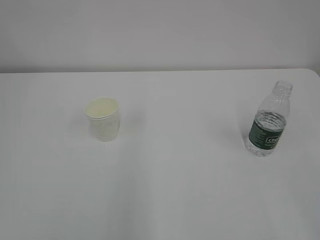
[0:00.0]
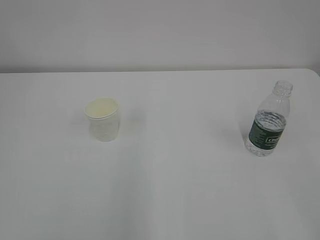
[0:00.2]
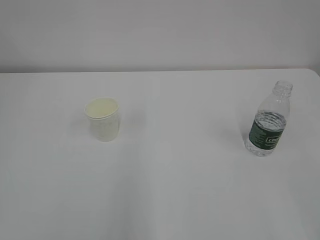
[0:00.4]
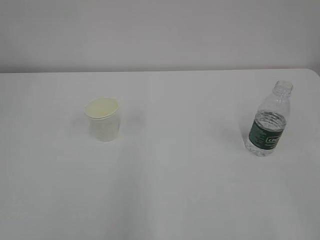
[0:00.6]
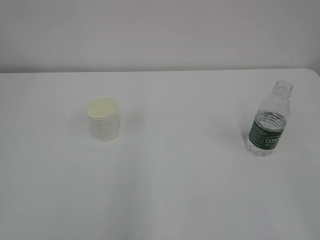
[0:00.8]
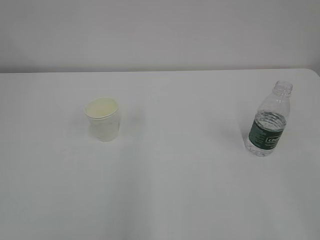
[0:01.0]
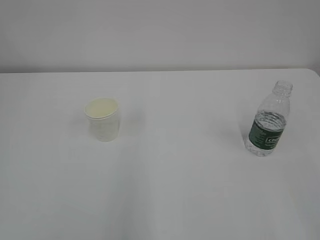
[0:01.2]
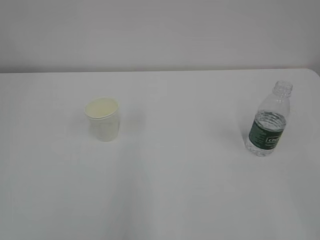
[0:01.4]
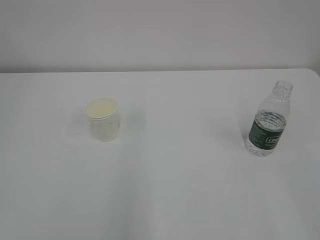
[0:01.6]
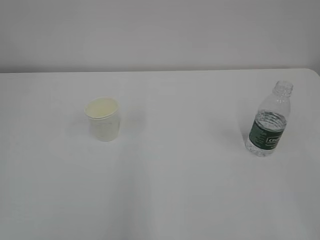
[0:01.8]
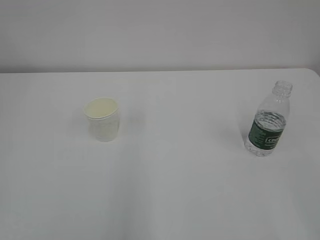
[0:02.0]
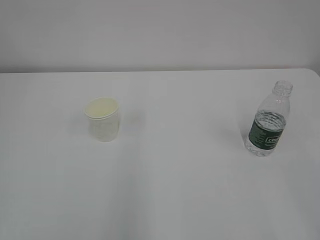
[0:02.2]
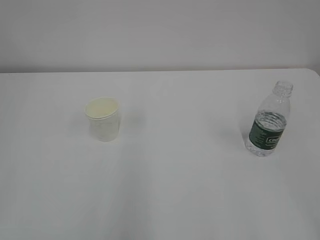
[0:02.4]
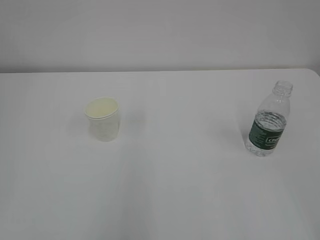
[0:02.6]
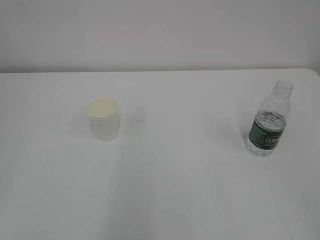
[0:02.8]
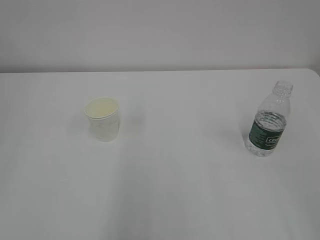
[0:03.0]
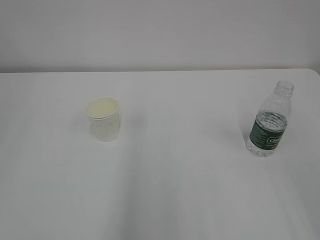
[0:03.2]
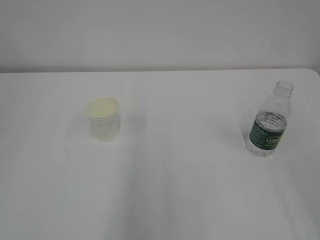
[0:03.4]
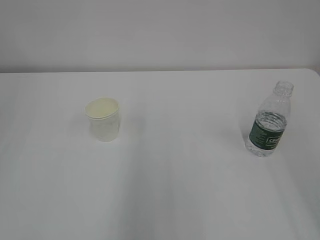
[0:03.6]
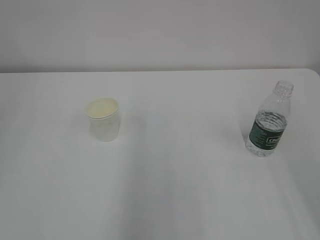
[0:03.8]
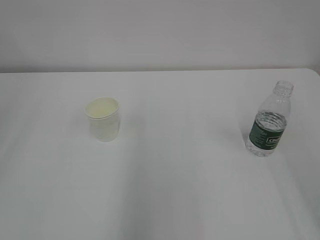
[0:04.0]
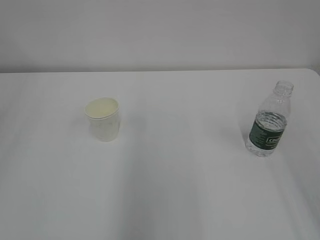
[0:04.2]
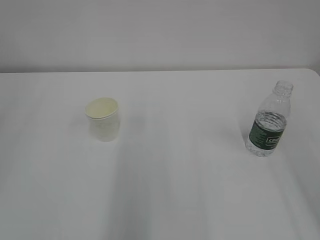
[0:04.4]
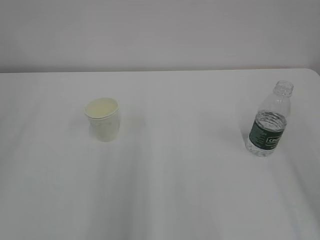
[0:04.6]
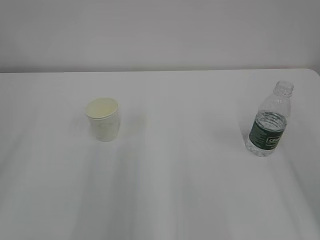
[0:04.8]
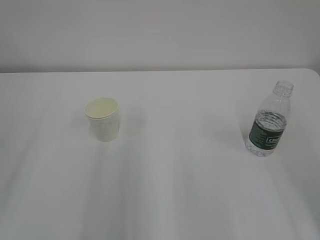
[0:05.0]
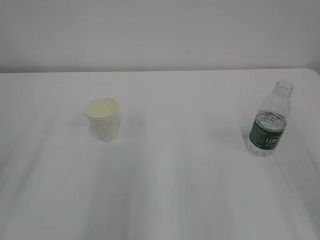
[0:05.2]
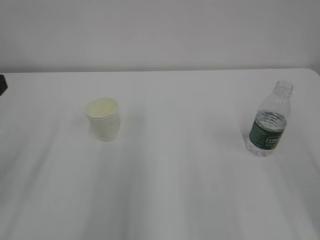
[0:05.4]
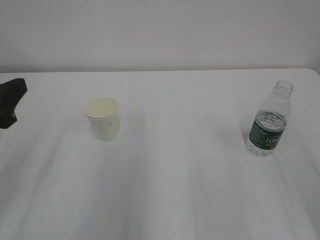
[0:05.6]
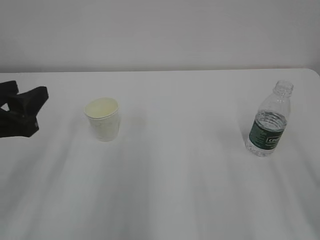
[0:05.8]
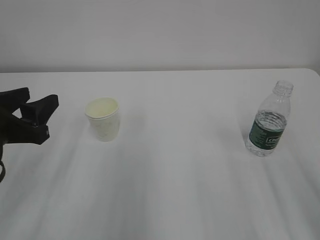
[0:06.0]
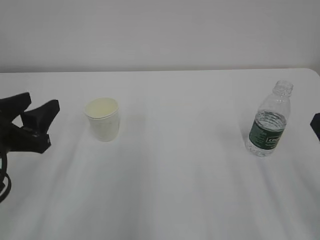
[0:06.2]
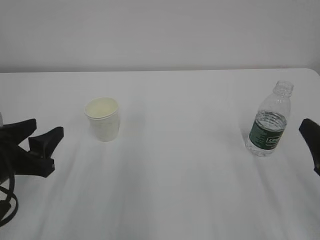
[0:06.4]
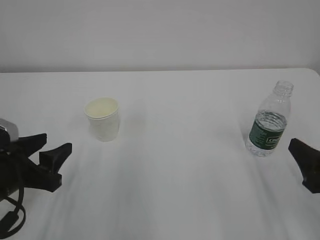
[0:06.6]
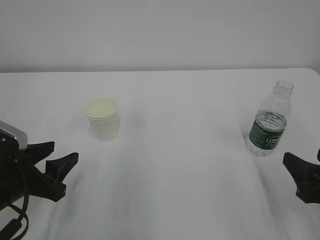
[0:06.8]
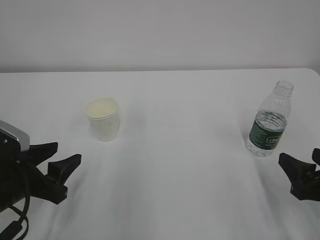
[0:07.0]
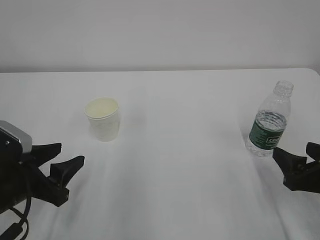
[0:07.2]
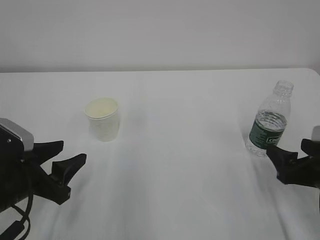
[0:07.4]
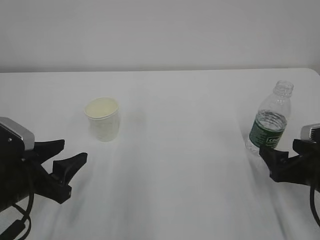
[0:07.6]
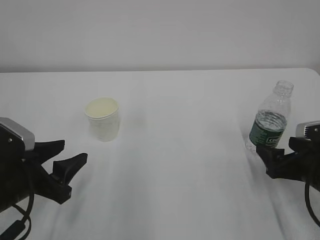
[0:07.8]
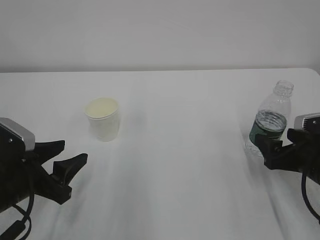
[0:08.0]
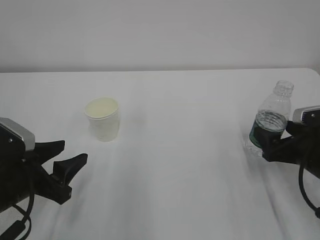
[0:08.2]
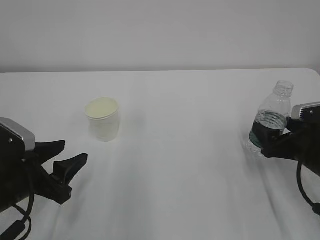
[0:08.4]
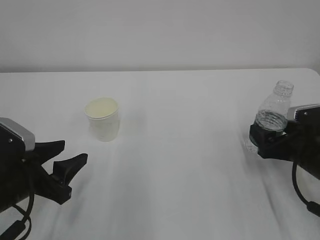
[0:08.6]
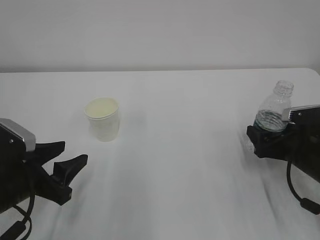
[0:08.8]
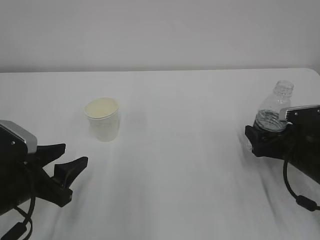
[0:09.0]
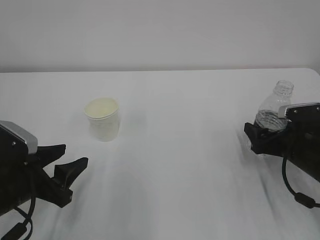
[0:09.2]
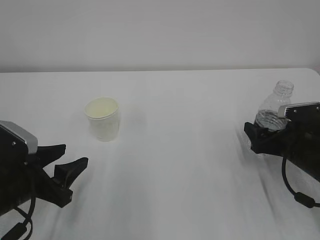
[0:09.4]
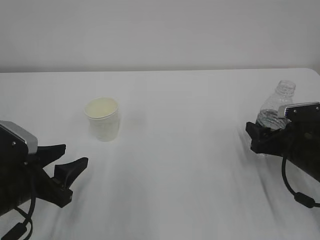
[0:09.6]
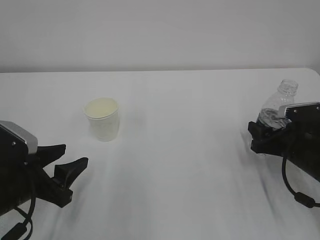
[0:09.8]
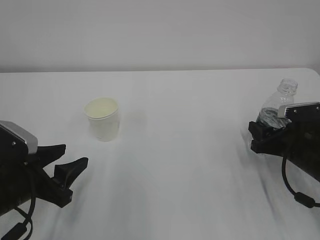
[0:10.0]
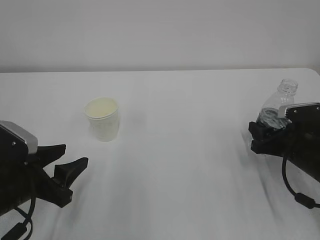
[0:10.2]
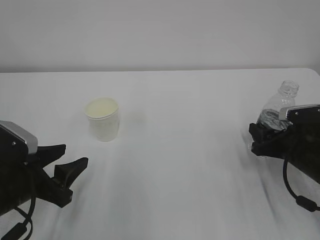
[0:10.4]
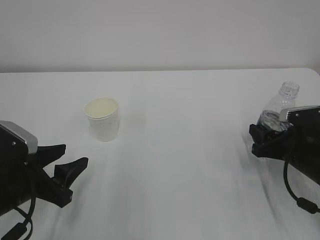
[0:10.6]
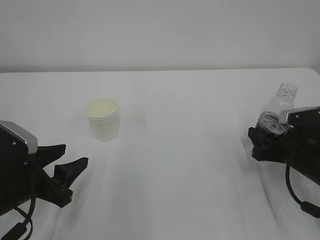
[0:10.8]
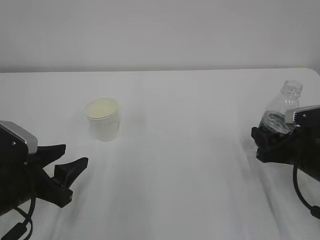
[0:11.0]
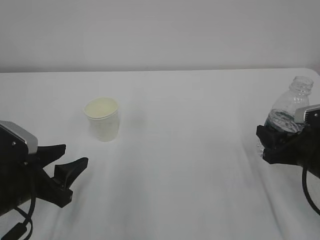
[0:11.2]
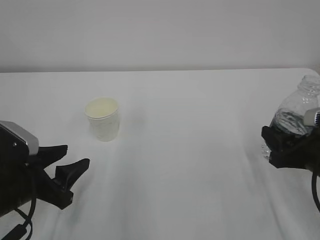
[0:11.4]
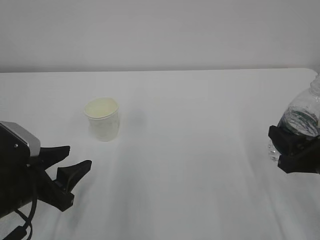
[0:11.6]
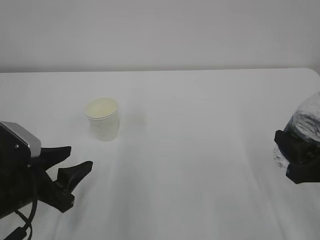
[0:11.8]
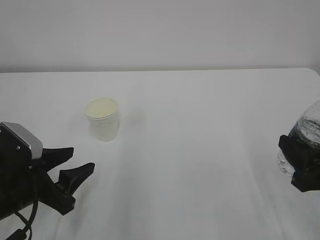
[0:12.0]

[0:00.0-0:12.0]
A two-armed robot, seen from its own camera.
0:04.4 to 0:06.0: The left gripper heads downward, to the right and forward, covering approximately 20 cm.
0:06.0 to 0:07.6: The right gripper moves downward and forward, roughly 15 cm, while the left gripper travels downward by some 10 cm.
0:07.6 to 0:09.0: The right gripper goes roughly 5 cm forward.
0:10.4 to 0:12.0: The right gripper is displaced backward and upward by roughly 15 cm.

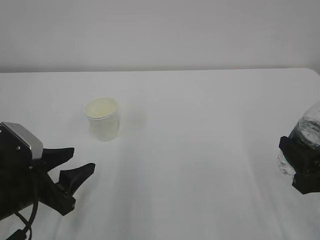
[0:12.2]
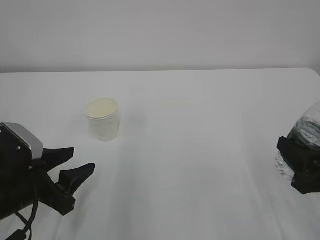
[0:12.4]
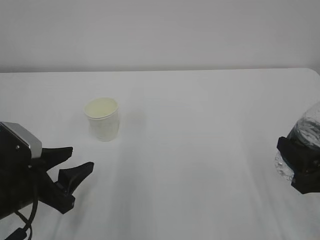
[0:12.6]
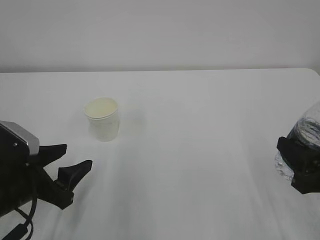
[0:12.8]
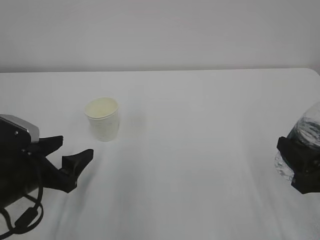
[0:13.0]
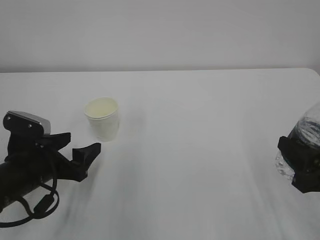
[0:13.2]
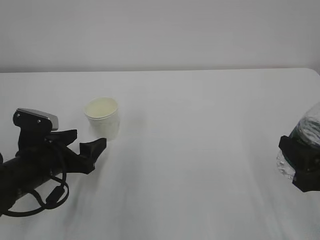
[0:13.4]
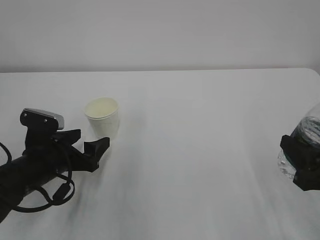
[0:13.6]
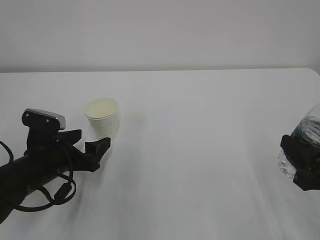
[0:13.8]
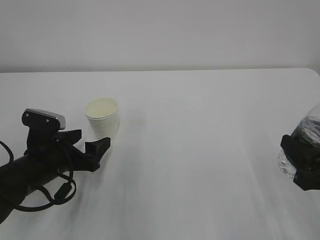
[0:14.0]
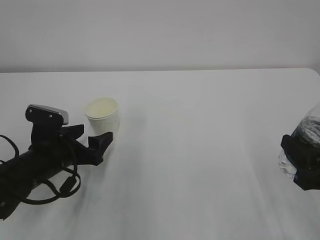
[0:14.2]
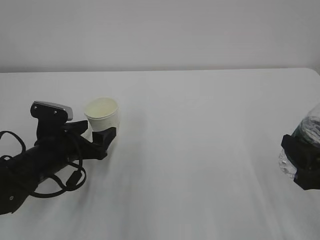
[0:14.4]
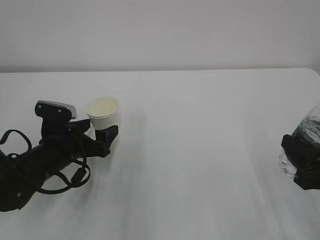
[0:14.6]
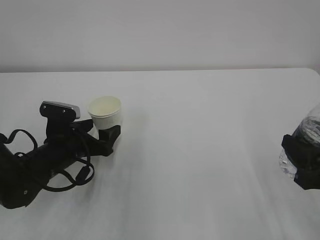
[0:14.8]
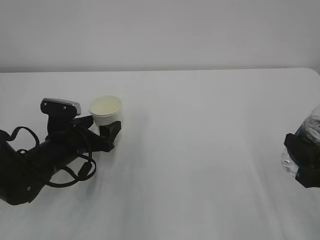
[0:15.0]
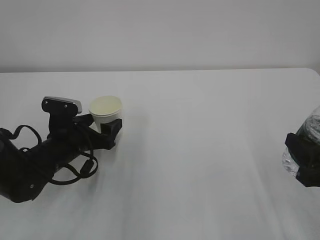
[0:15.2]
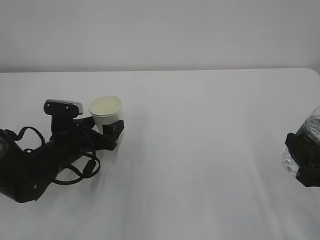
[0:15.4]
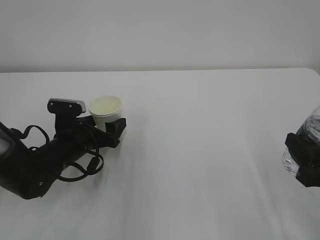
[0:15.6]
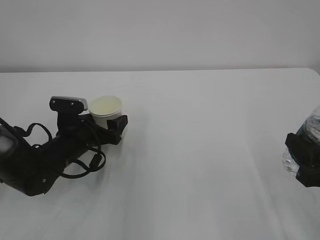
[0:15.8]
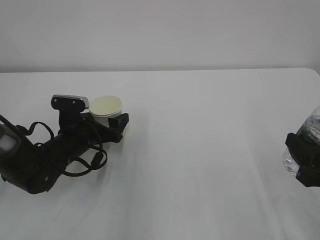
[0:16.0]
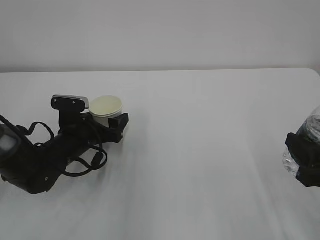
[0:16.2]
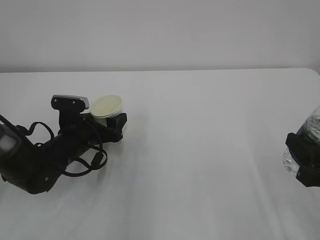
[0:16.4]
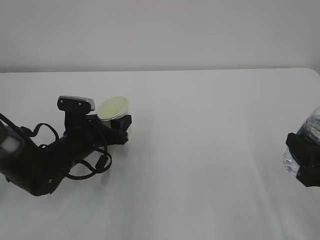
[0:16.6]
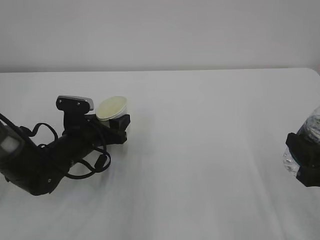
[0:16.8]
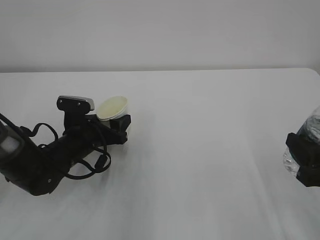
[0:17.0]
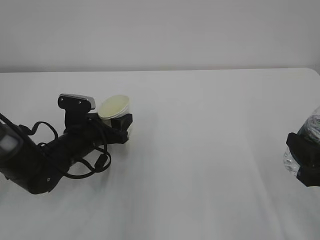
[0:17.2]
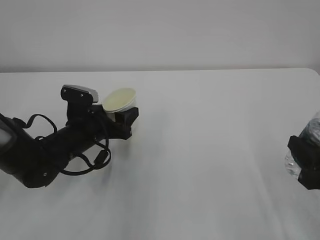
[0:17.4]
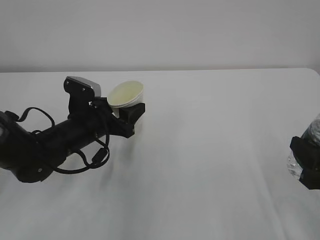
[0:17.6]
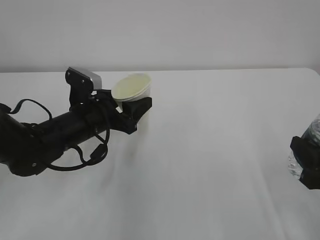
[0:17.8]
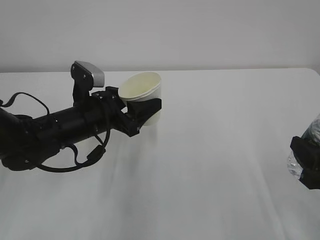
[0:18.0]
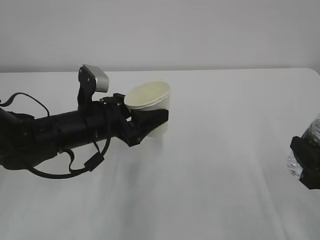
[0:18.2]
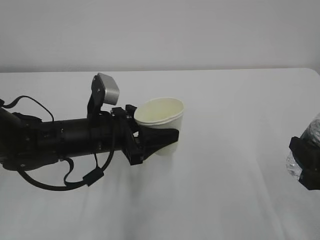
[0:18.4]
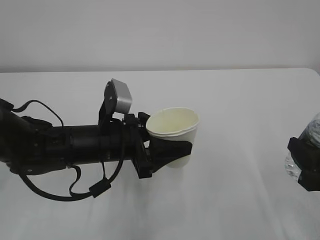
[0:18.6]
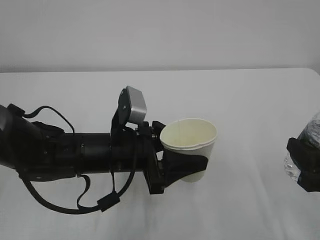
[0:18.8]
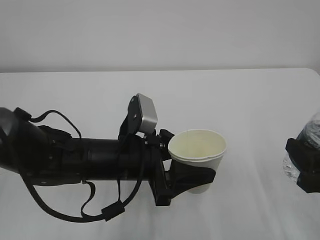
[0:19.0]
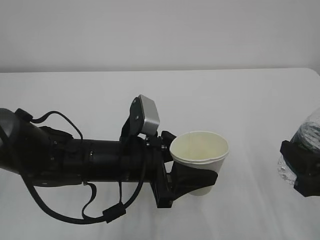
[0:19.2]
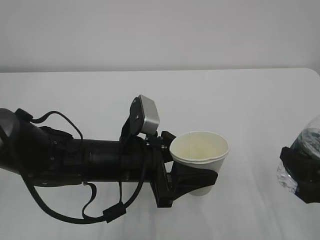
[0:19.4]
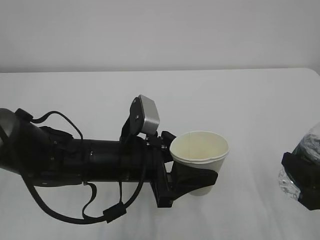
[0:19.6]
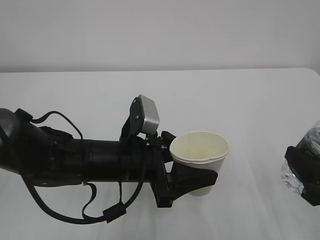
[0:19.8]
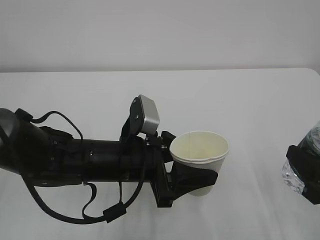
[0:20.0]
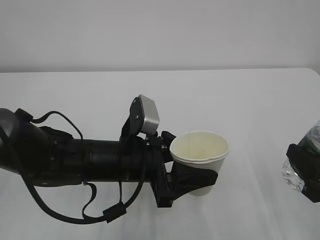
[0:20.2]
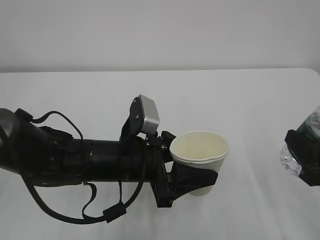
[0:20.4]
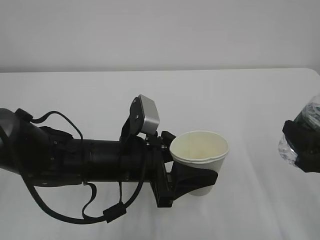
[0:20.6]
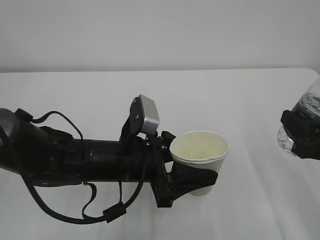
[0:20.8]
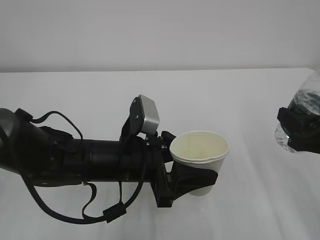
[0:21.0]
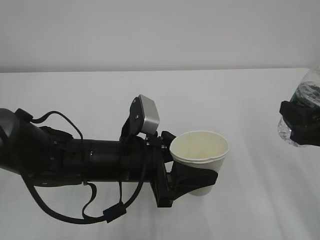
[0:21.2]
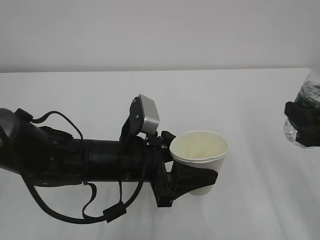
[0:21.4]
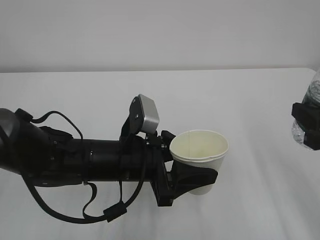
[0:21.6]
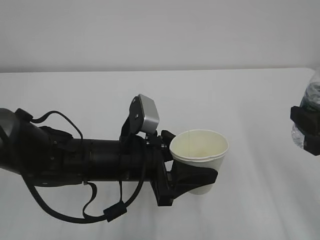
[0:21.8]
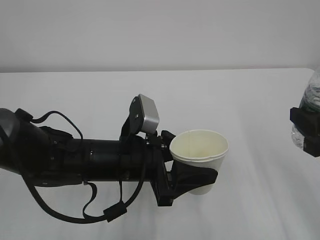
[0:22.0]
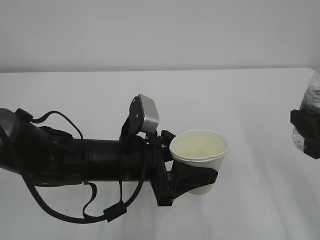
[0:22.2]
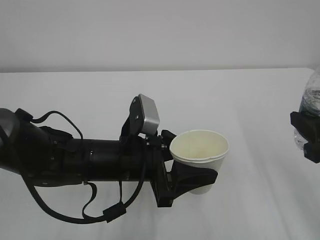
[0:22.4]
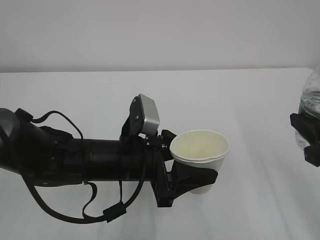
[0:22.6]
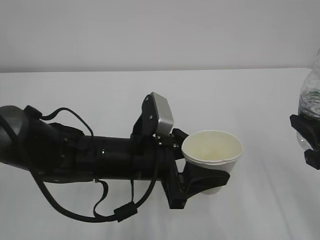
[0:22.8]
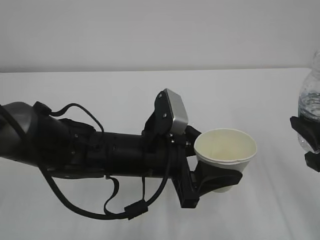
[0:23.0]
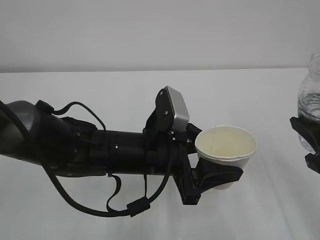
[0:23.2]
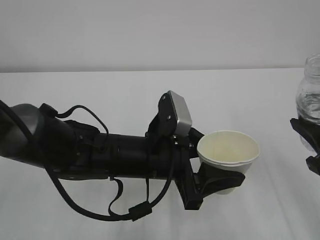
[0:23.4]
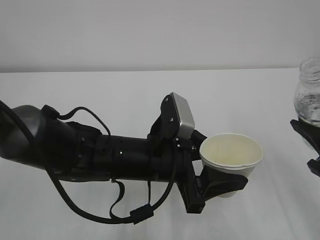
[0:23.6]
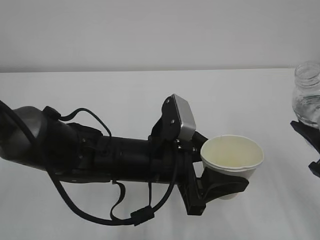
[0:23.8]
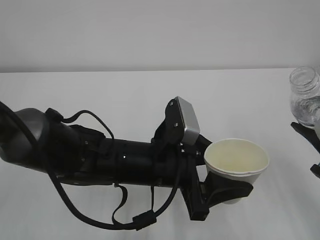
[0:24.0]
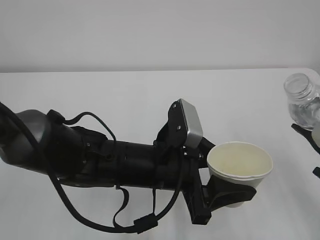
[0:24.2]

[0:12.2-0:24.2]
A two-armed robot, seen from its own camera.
0:12.2 to 0:13.8: The left gripper goes about 5 cm forward, and opens up.
0:13.8 to 0:15.2: The left gripper ends up some 5 cm from where it was.
0:15.2 to 0:16.6: The left gripper closes its fingers.
0:16.6 to 0:18.2: The left gripper travels upward by about 10 cm.
0:18.2 to 0:19.8: The left gripper moves backward and to the right, about 10 cm.
0:19.8 to 0:21.2: The right gripper goes roughly 5 cm forward.
0:21.2 to 0:22.6: There are only small adjustments of the grippers.
0:22.6 to 0:24.2: The left gripper ends up roughly 5 cm from where it was.
